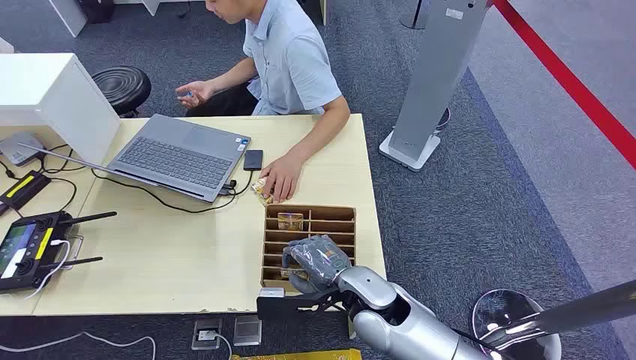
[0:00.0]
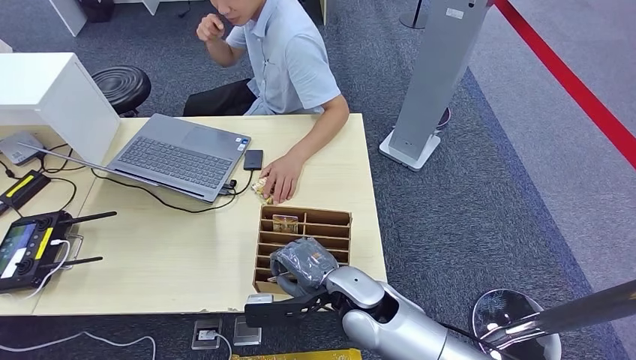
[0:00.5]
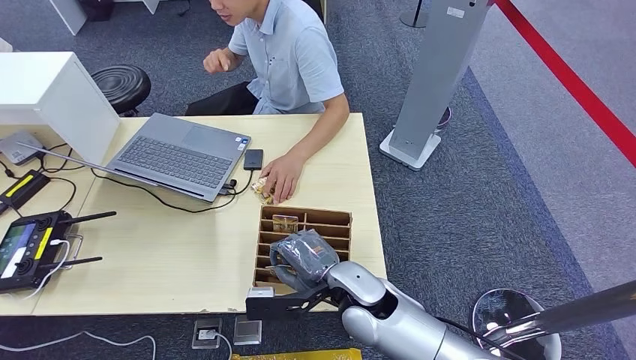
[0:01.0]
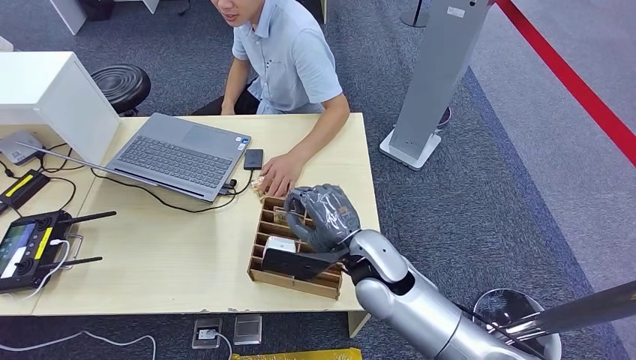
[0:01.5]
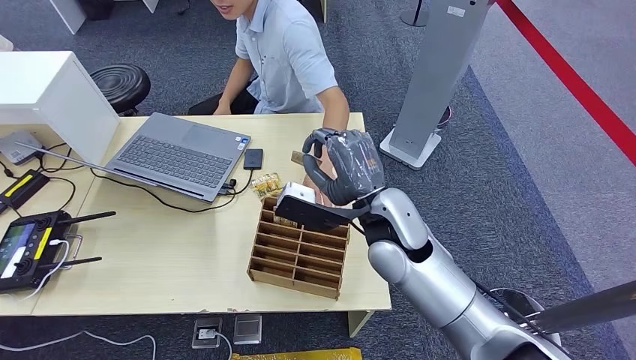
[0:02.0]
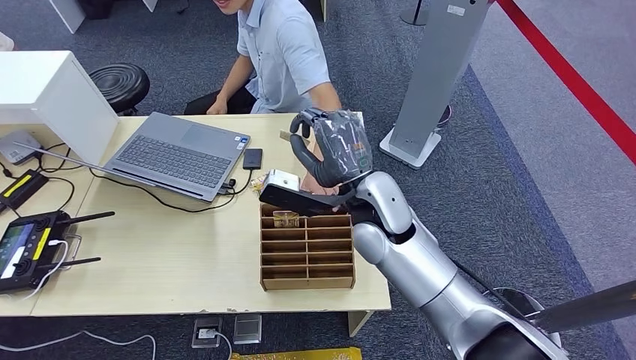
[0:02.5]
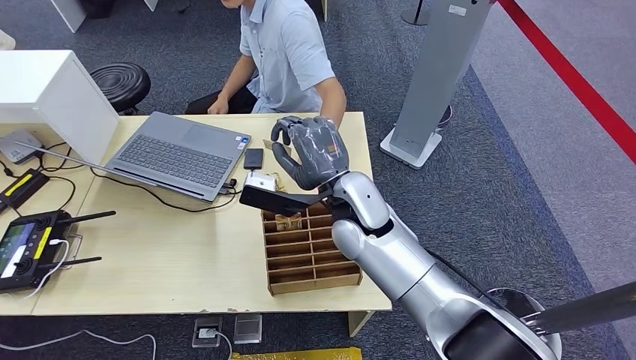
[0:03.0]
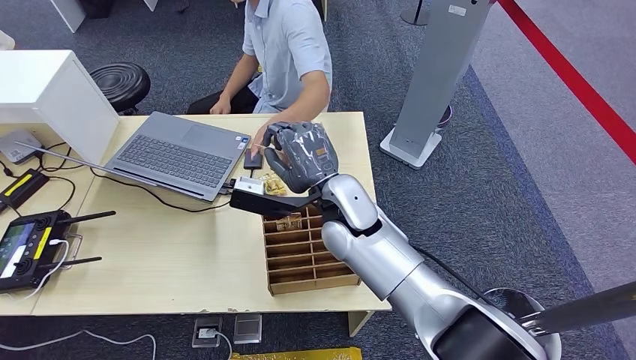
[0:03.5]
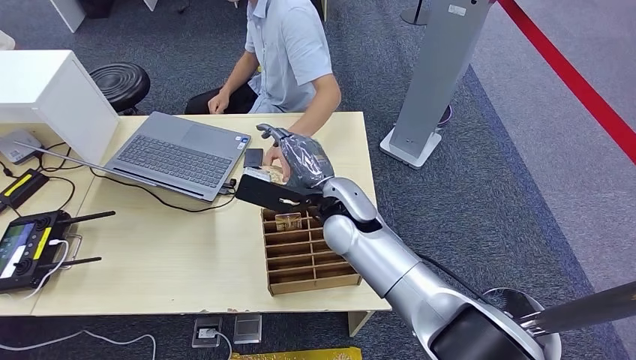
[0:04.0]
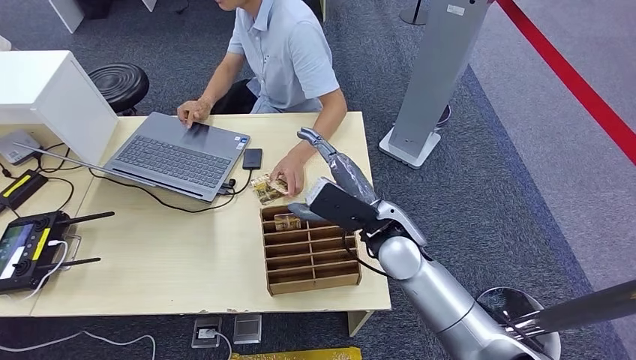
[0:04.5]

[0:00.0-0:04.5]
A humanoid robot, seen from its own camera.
Step, 0:00.0 to 0:01.5: Pick up the key card from the card box.
Step, 0:02.0 to 0:04.5: Hand the key card to the target.
0:02.0 to 0:04.5: The right hand goes to the left and returns, about 5 cm each way.
